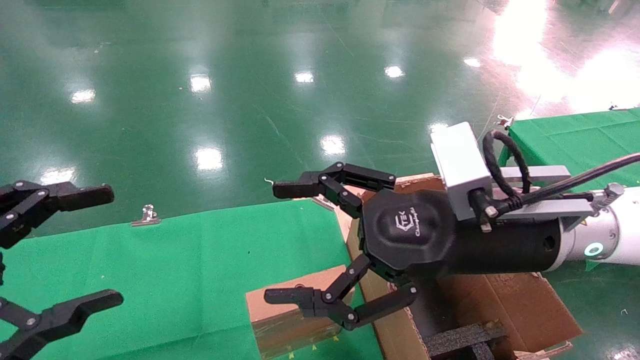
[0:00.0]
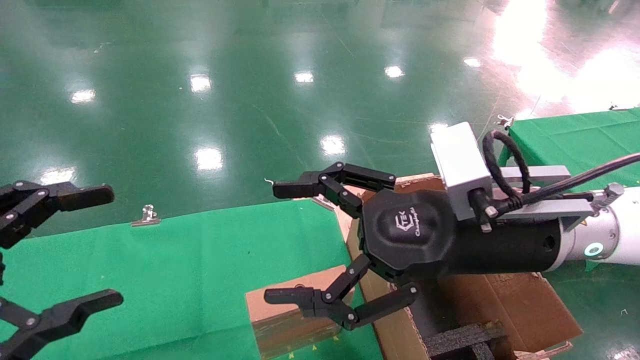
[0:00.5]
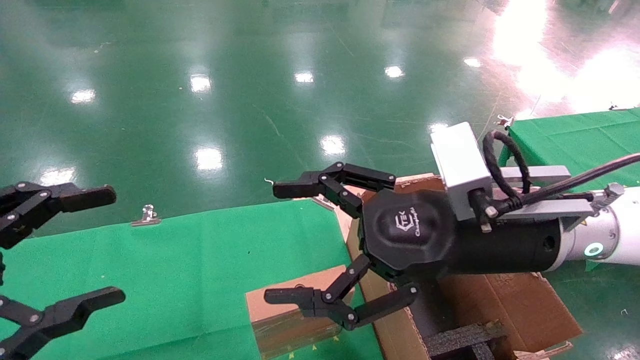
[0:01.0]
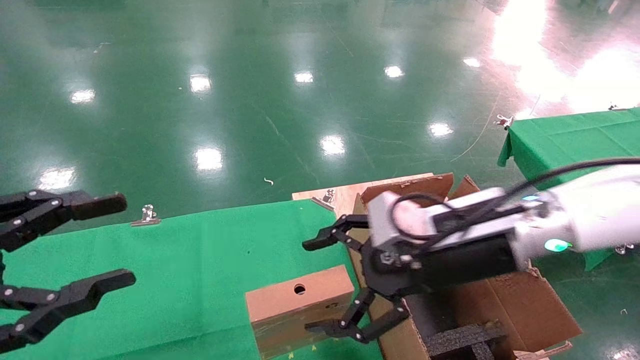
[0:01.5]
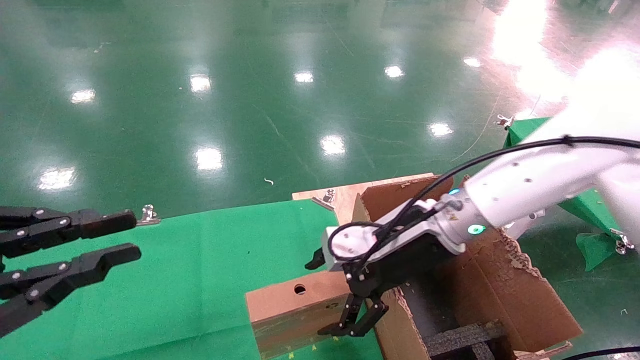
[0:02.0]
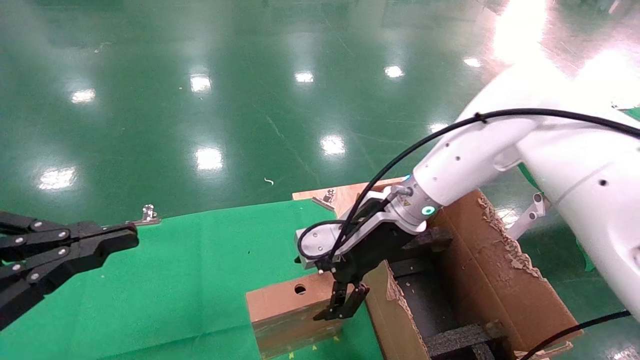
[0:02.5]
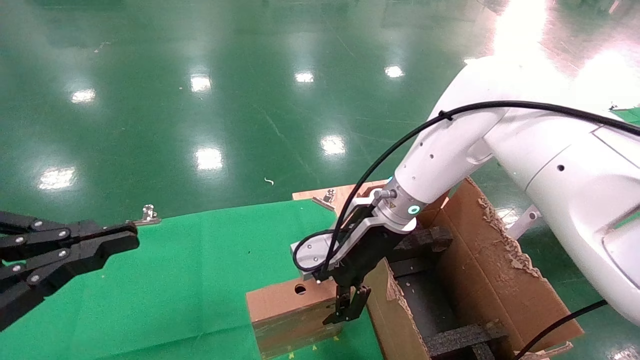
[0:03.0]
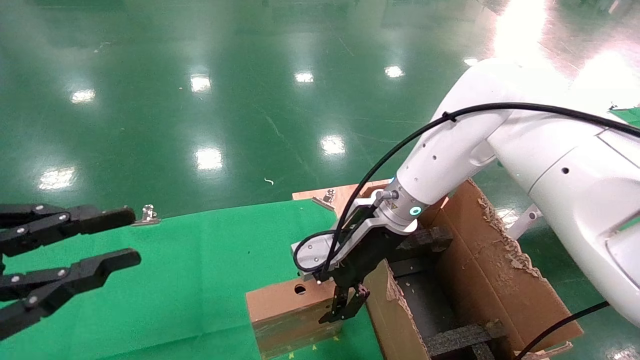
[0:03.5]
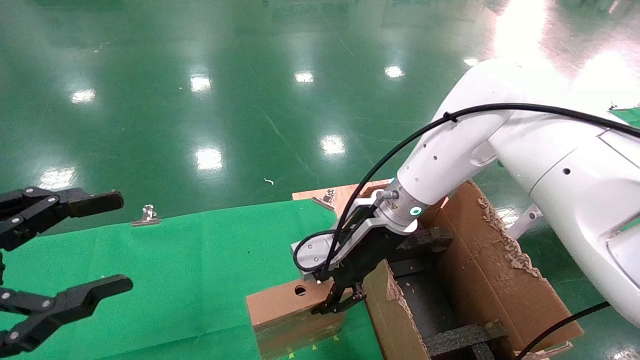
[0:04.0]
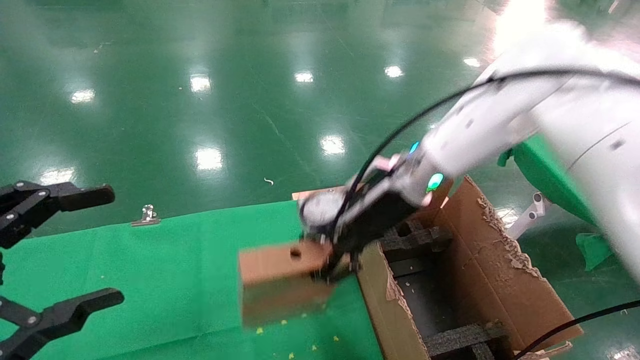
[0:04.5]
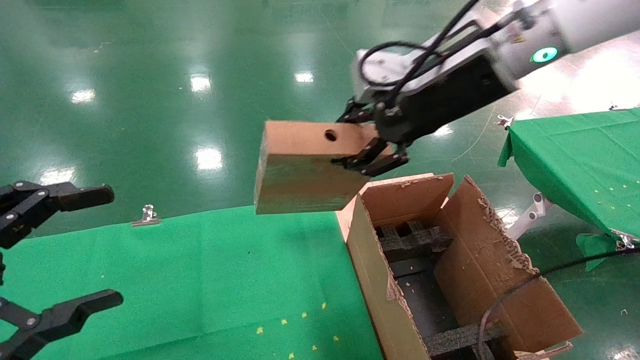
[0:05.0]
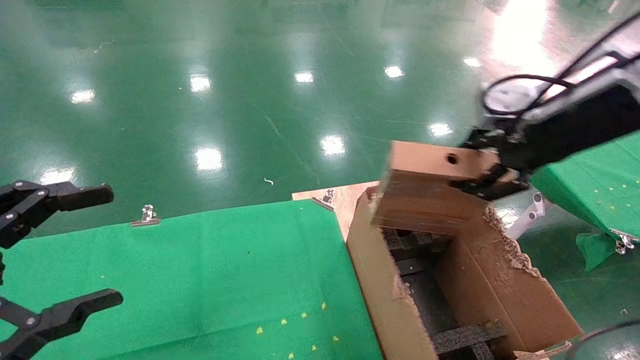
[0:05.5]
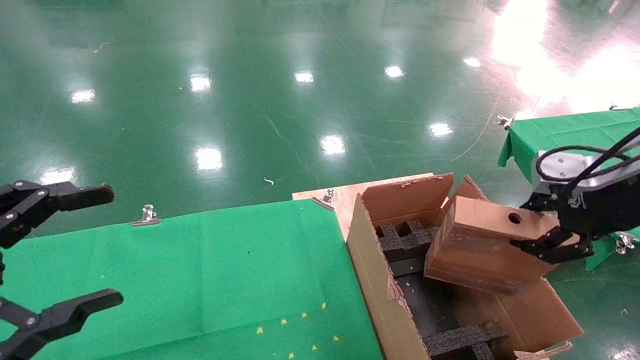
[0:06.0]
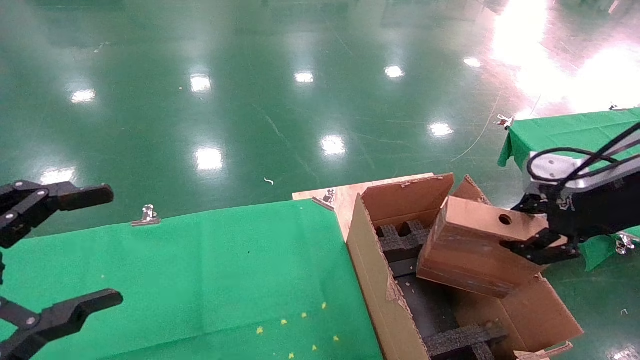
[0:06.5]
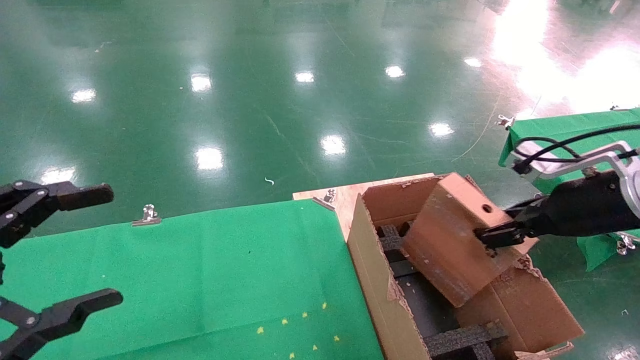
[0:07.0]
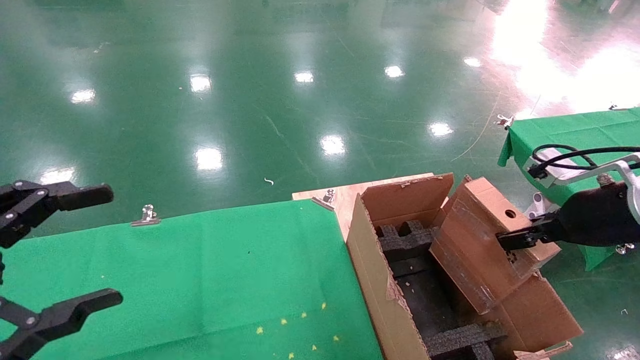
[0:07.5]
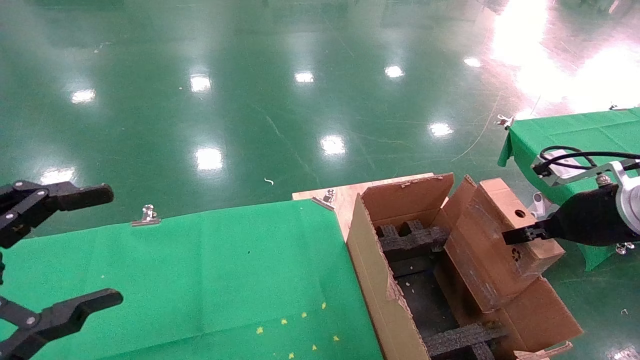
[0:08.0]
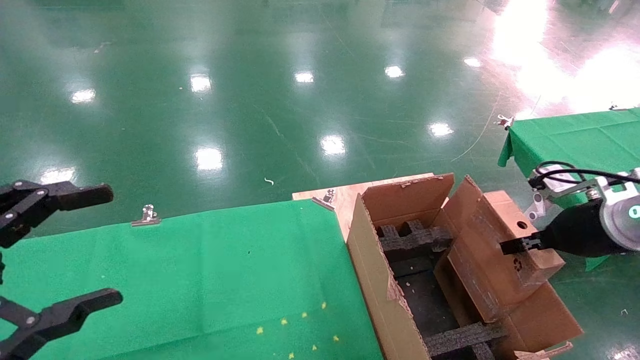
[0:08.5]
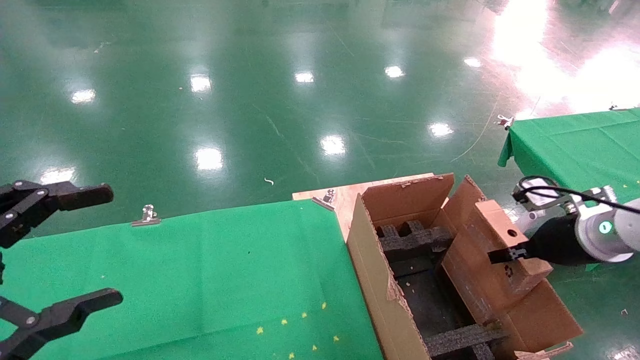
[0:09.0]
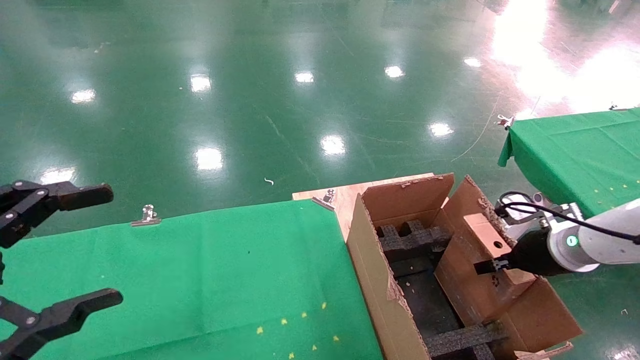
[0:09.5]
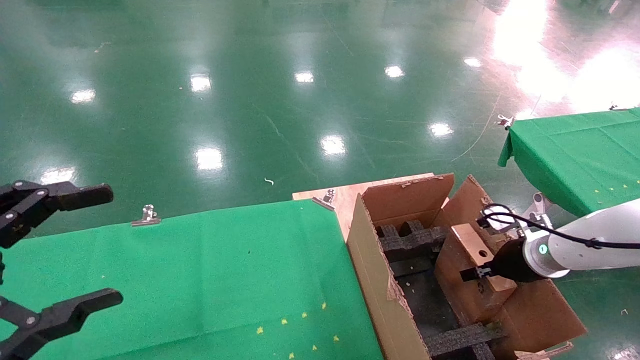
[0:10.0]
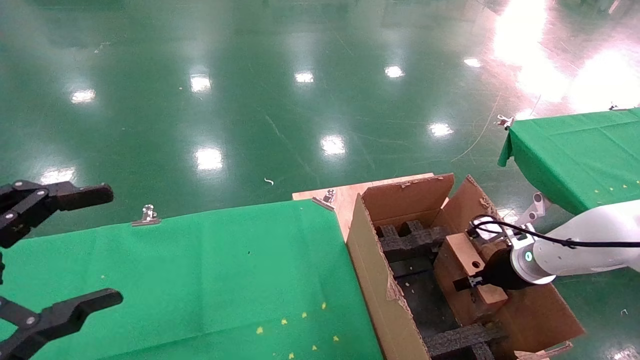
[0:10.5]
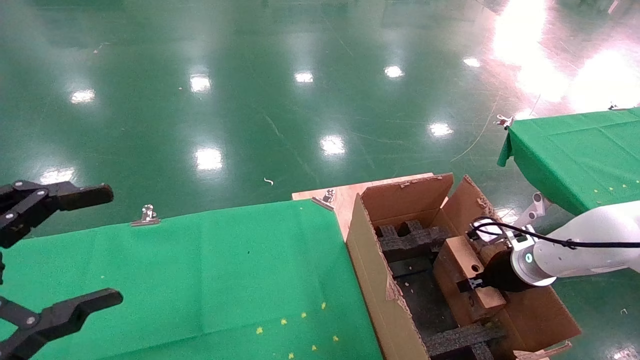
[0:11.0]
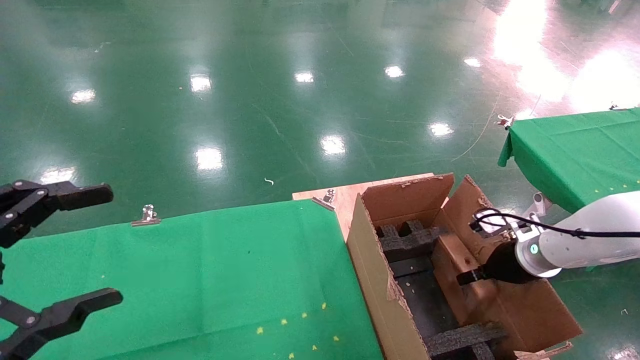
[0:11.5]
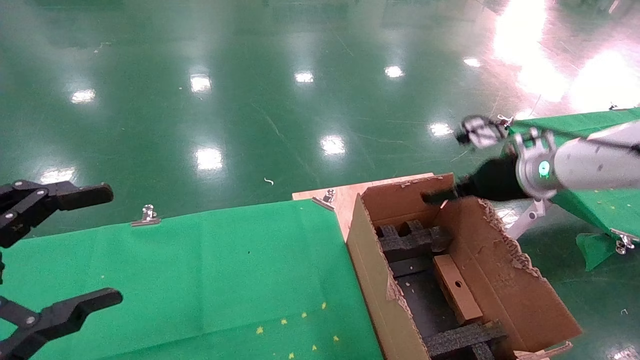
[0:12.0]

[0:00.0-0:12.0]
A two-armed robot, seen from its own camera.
Task of the whole recording: using a robotic arm to pick up a cardboard box and palace it the carton.
Step, 0:01.5 to 0:03.5: Pick up the mouse and the power cord paper box.
Step, 0:04.0 to 0:11.5: Place the mouse and the power cord paper box into the container.
0:00.0 to 0:02.0: The left gripper closes up. Meanwhile the right gripper shifts approximately 10 cm forward.
0:02.0 to 0:04.0: The right gripper goes approximately 5 cm forward, and closes its fingers.
0:04.0 to 0:06.0: The right gripper heads to the right, backward and upward, covering about 30 cm, and closes, while the left gripper opens up.
0:06.0 to 0:08.0: The right gripper heads downward, covering about 5 cm.
0:08.0 to 0:10.0: The right gripper shifts roughly 15 cm downward and forward.
0:10.0 to 0:12.0: The right gripper heads upward and to the left, covering about 15 cm, and opens.

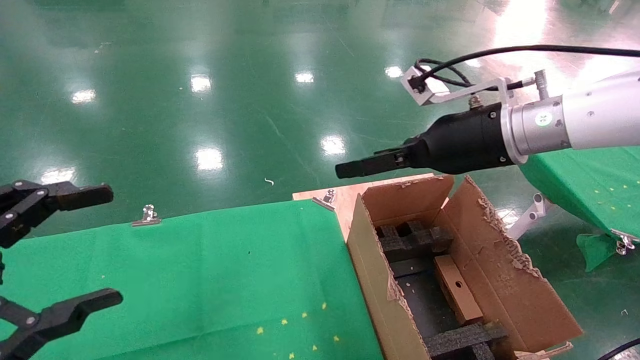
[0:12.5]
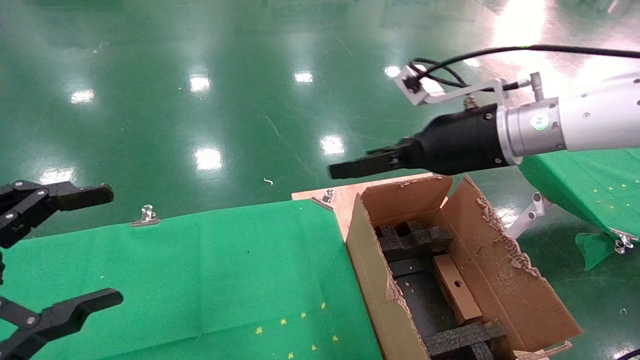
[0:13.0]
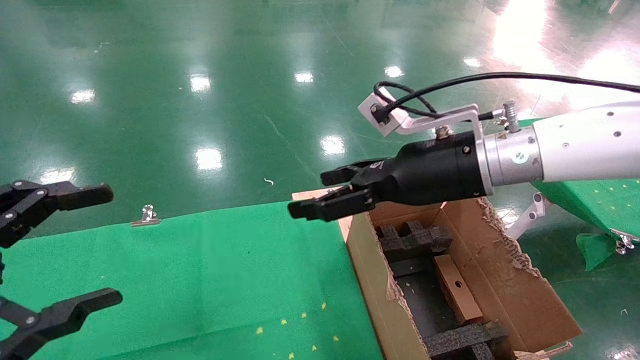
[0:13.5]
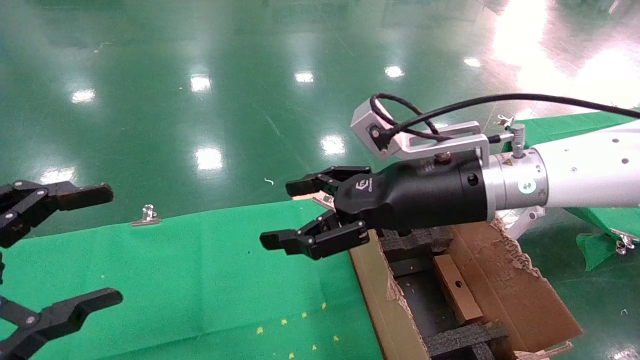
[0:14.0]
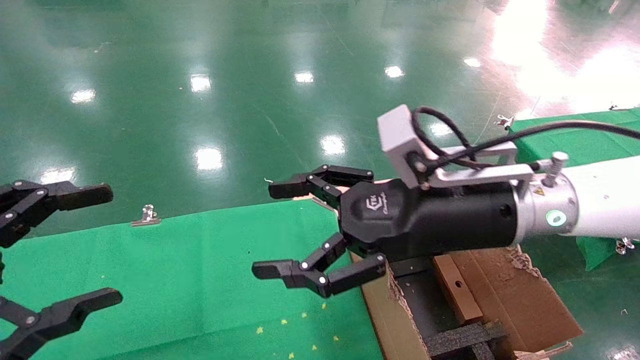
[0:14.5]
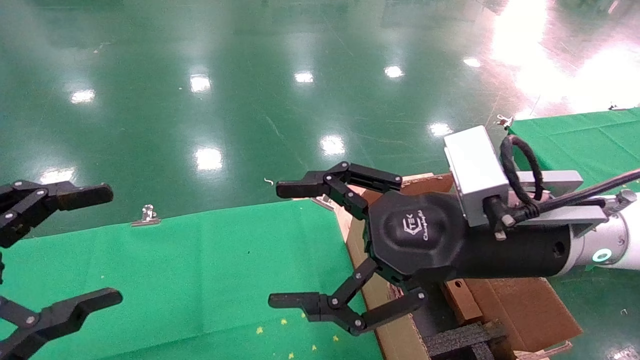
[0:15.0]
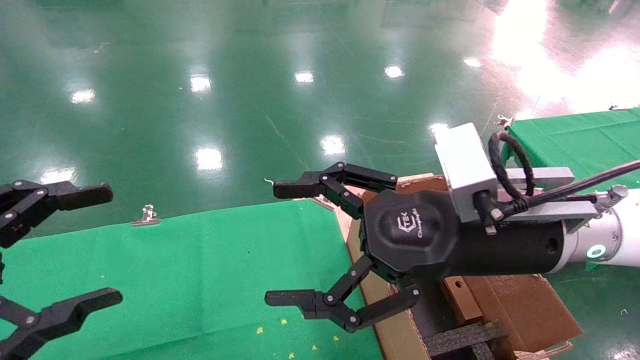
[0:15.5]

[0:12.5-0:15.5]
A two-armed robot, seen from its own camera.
Task of the whole recording: using a robotic arm to pick up a cardboard box and palace it the carton.
0:12.5 to 0:14.0: The right gripper heads to the left, covering roughly 10 cm.
0:14.0 to 0:15.5: The right gripper shifts approximately 5 cm backward.
